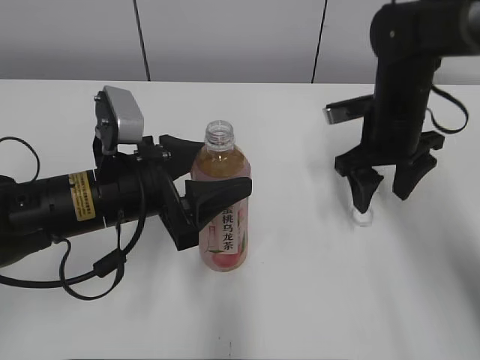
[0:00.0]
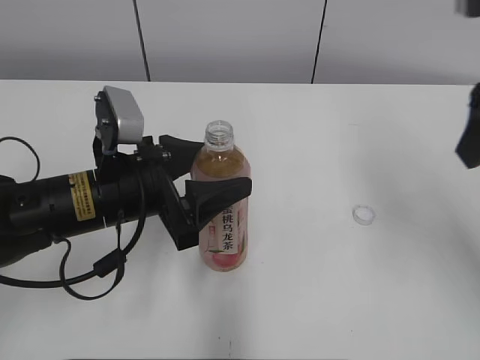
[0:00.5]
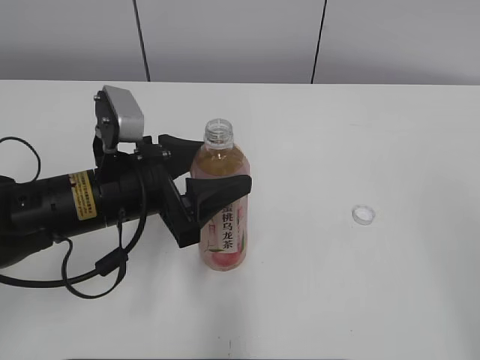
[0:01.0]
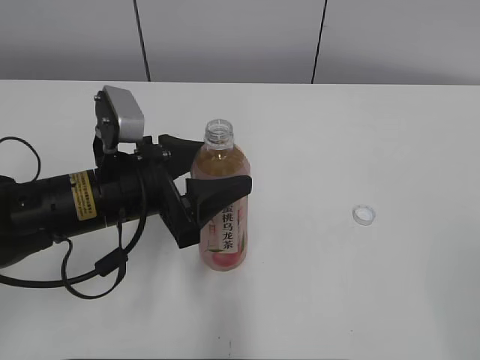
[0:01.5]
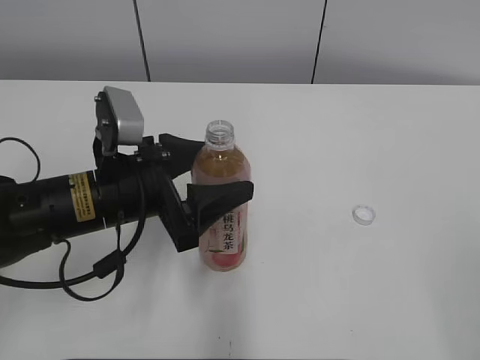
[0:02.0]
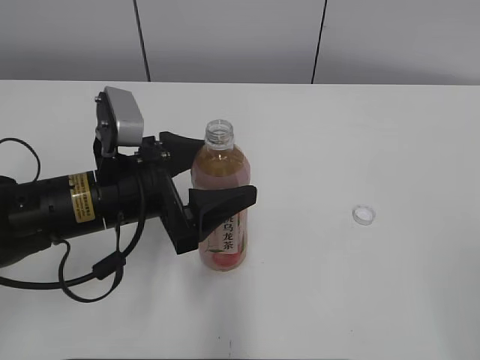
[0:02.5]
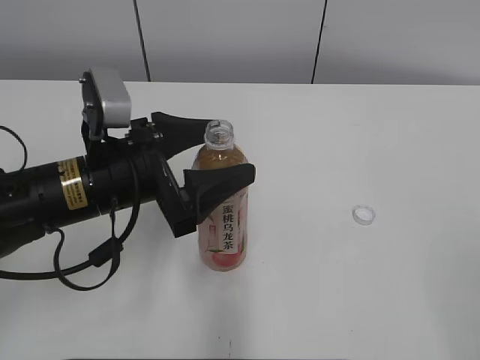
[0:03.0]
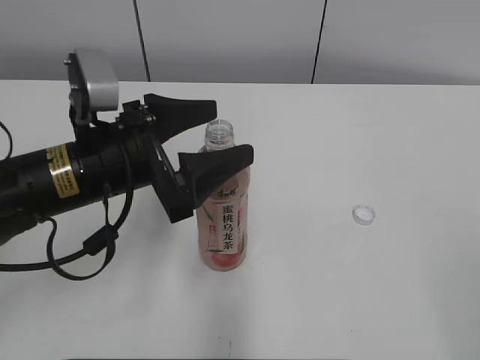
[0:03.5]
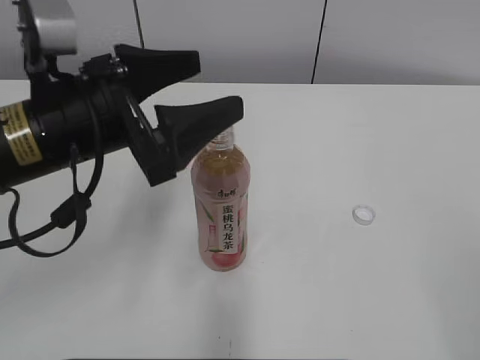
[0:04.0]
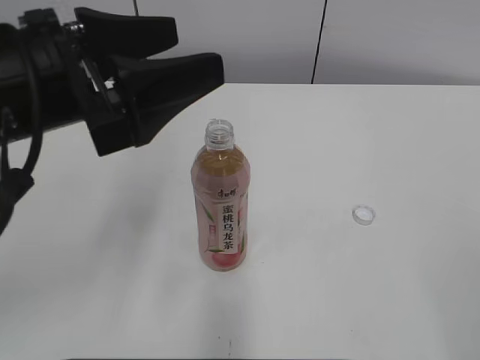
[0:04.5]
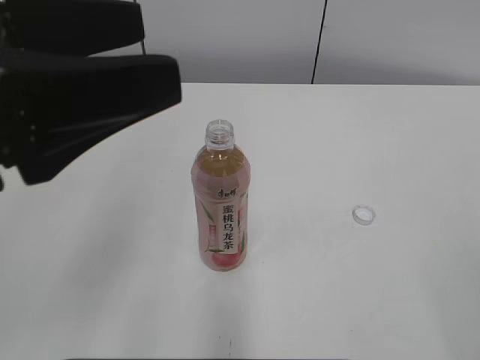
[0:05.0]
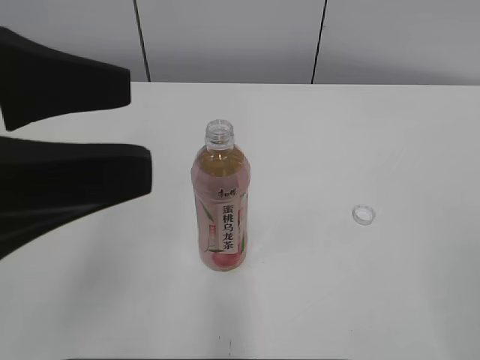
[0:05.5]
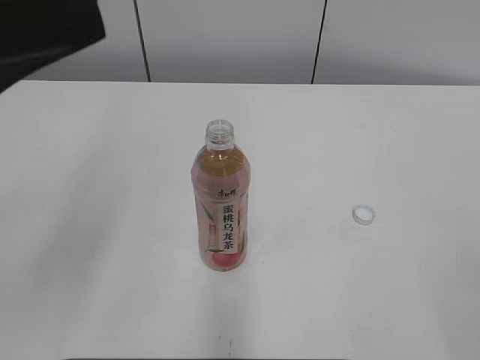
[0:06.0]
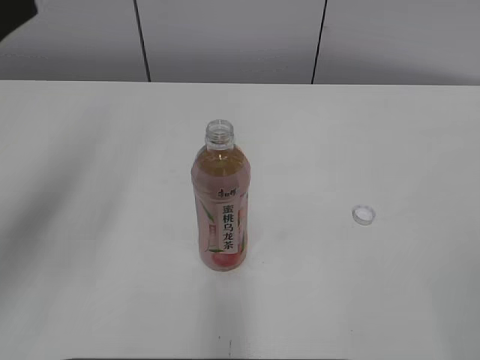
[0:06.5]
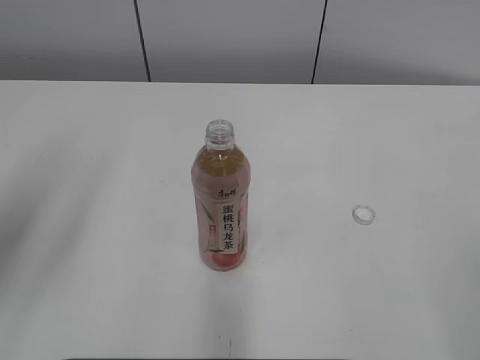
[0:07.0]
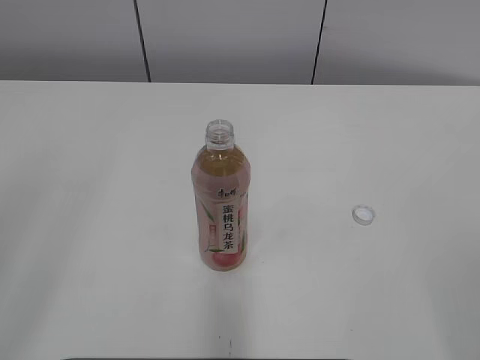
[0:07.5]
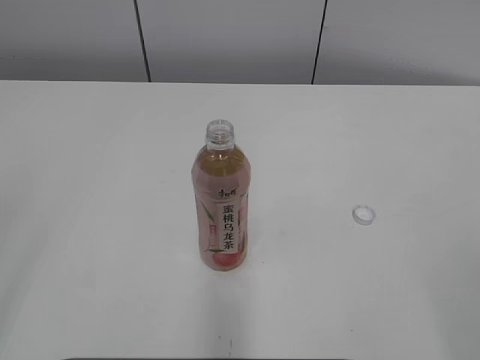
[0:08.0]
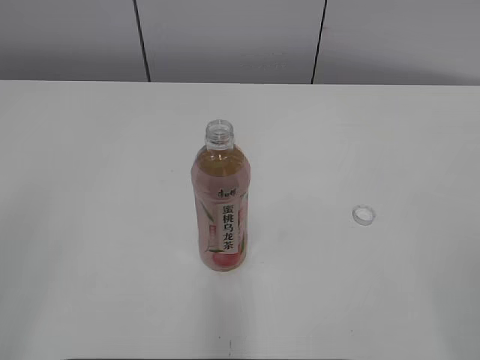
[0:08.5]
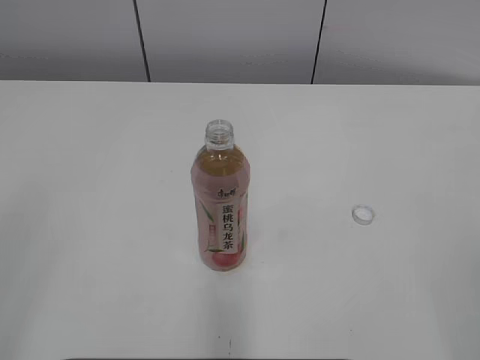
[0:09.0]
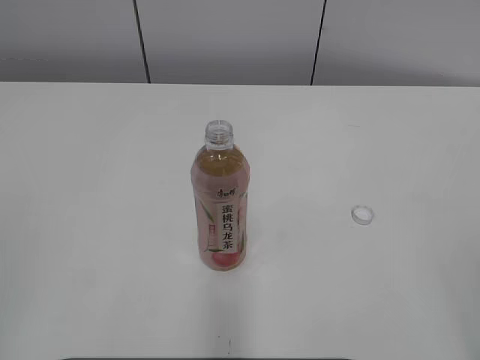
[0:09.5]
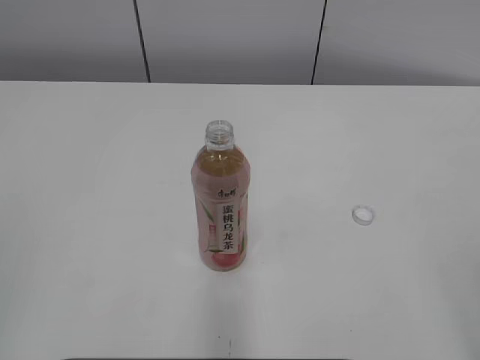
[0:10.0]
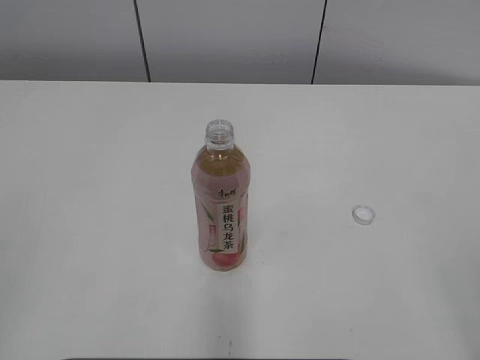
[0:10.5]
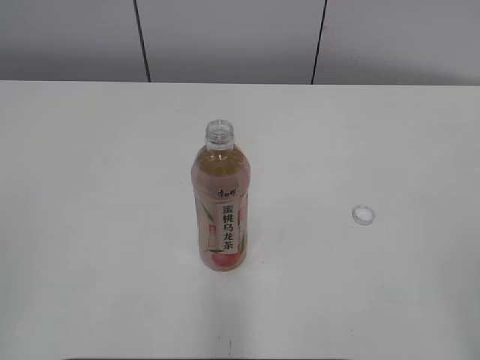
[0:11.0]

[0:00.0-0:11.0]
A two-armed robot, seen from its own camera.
0:00.0 to 0:02.0: The right gripper is displaced backward by roughly 40 cm.
0:02.0 to 0:03.5: The grippers move only a little.
0:03.5 to 0:05.5: The left gripper heads upward and backward, covering about 20 cm.
0:05.5 to 0:07.5: The left gripper shifts roughly 10 cm to the left and backward.

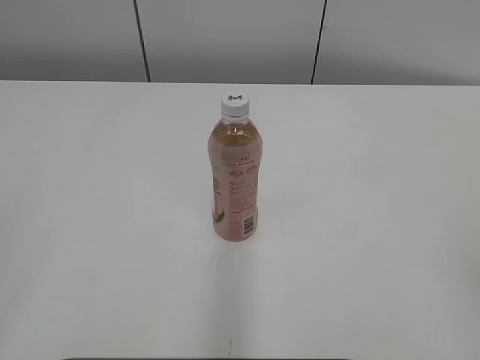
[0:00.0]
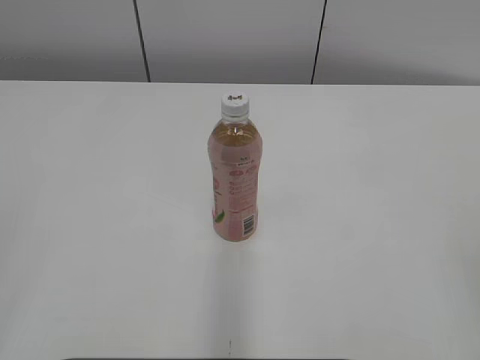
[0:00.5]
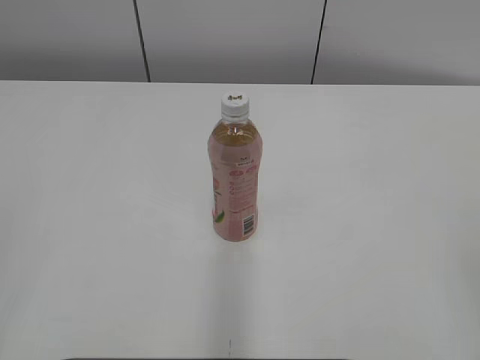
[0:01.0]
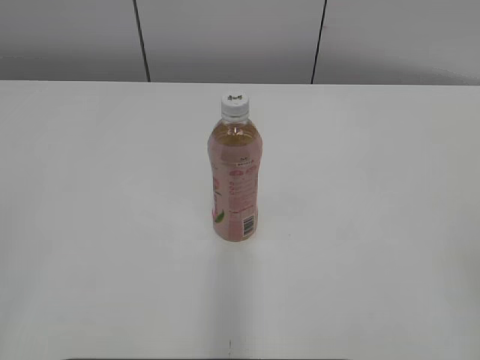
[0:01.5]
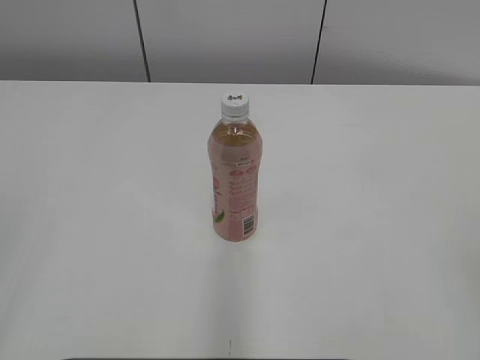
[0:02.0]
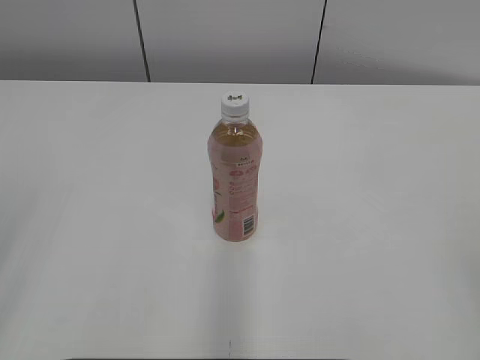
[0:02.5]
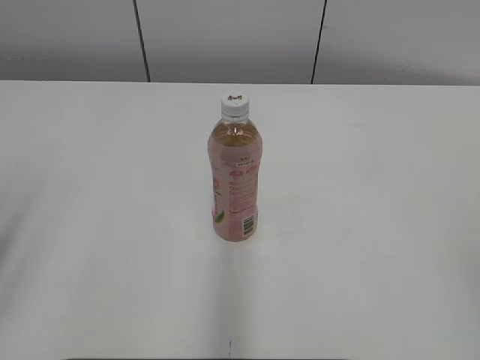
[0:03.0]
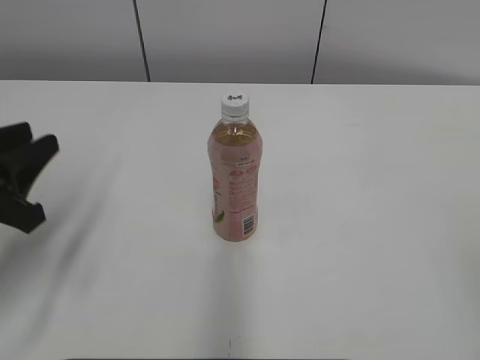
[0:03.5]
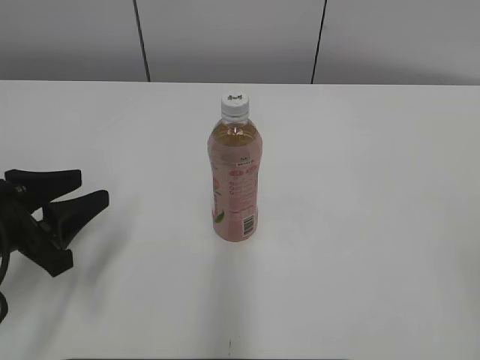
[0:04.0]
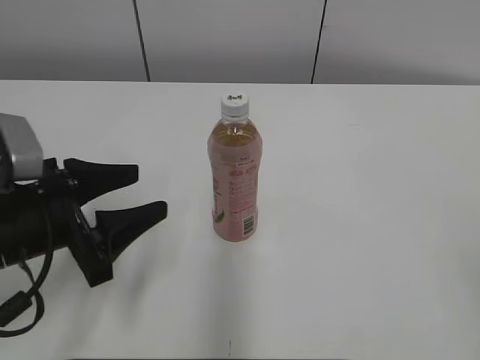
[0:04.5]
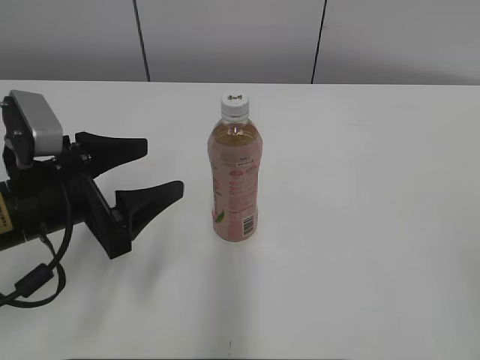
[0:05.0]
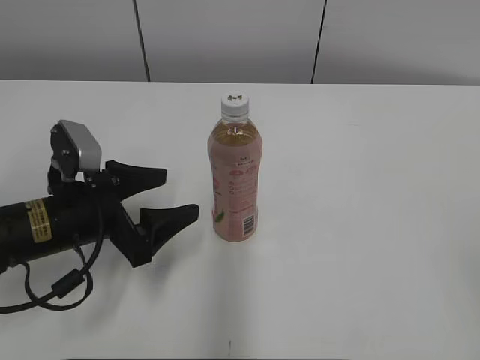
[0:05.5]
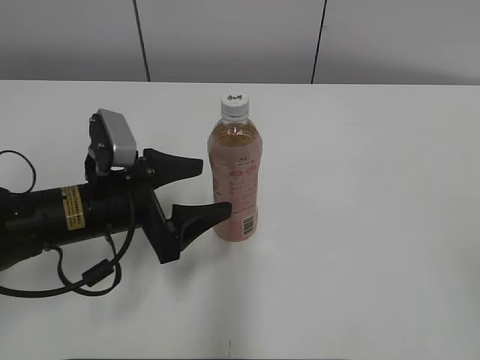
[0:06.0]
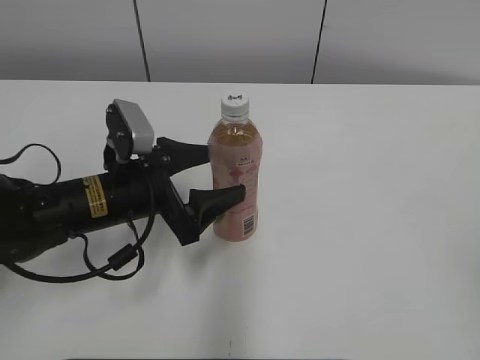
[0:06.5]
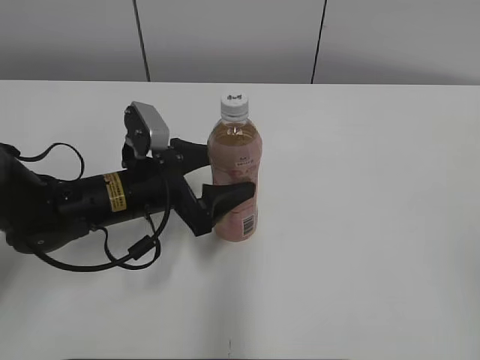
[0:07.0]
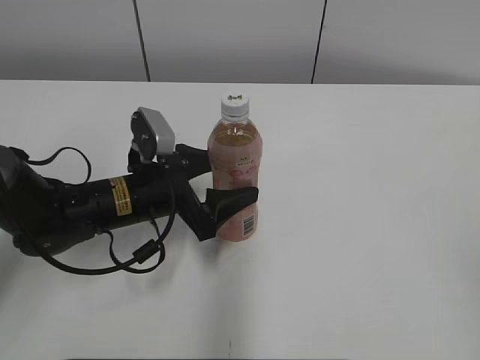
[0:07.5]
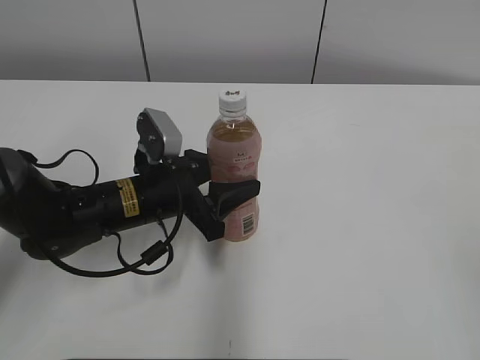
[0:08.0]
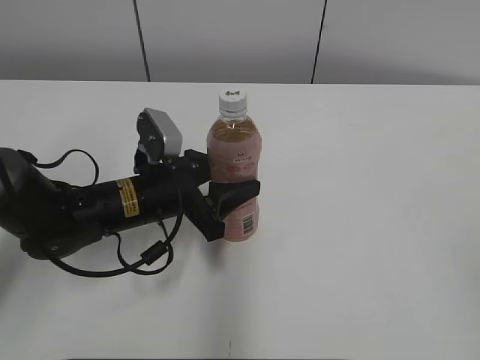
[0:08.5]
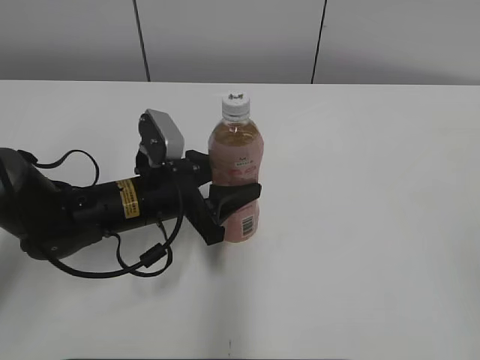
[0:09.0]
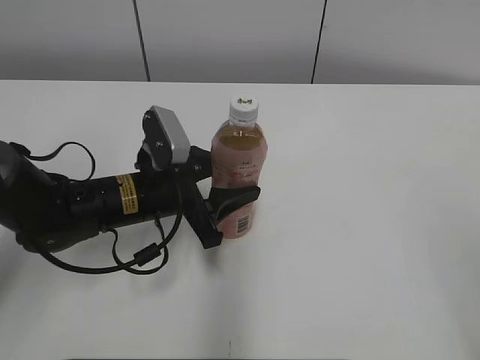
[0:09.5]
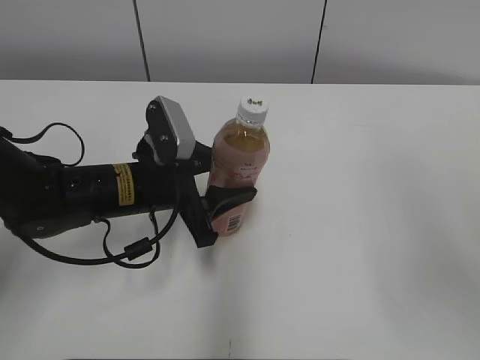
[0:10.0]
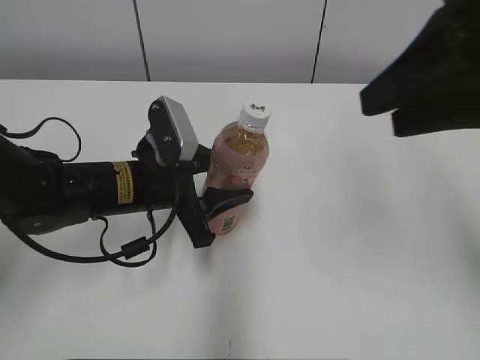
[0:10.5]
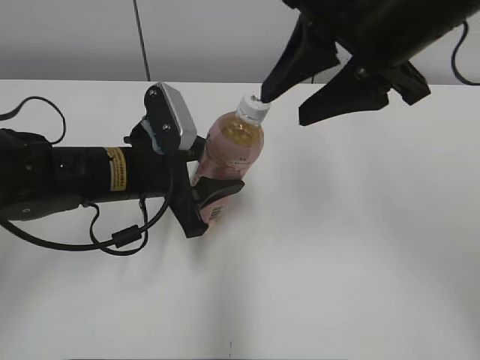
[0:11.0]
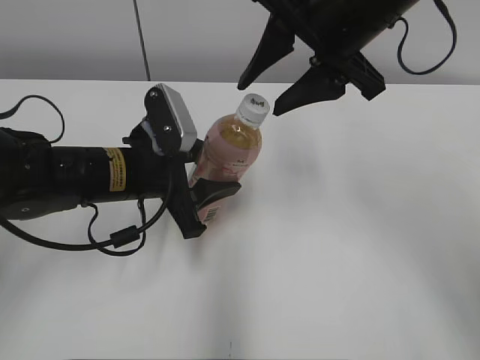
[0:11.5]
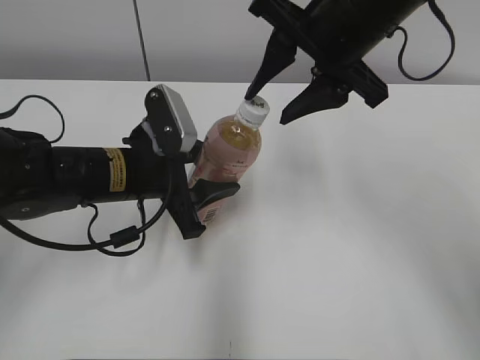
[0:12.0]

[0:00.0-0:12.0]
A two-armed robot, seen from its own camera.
Step, 0:00.0 to 0:08.5: Grab the Peach Oolong Tea with the left hand.
0:02.0 to 0:04.0: The left gripper is displaced forward and downward by roughly 25 cm, and opens.
0:04.0 to 0:06.0: The left gripper travels to the right and forward by roughly 10 cm, and opens its fingers.
0:06.0 to 0:08.0: The left gripper changes place by some 5 cm, and closes up.
0:08.0 to 0:10.0: The right gripper goes some 15 cm forward and upward.
0:10.0 to 0:12.0: The right gripper travels forward and to the left by roughly 25 cm.

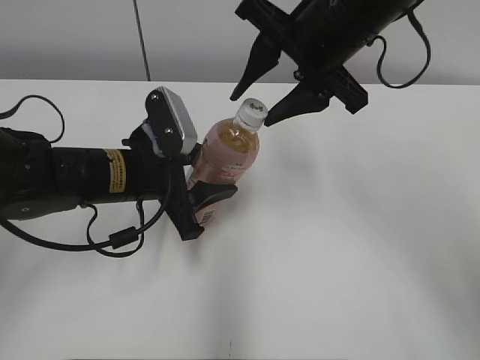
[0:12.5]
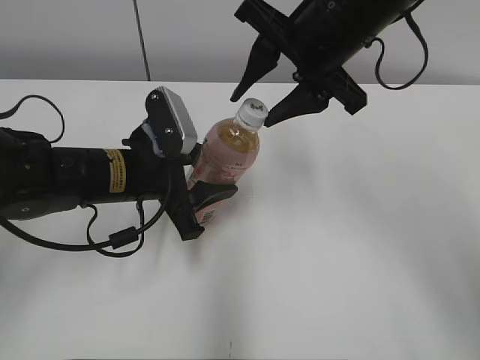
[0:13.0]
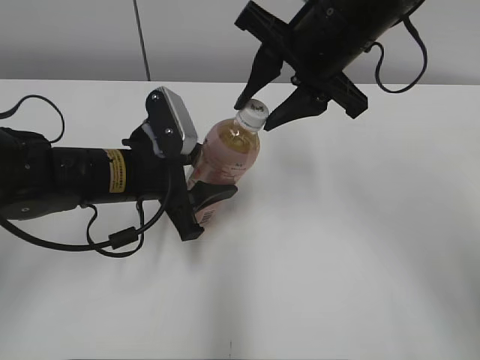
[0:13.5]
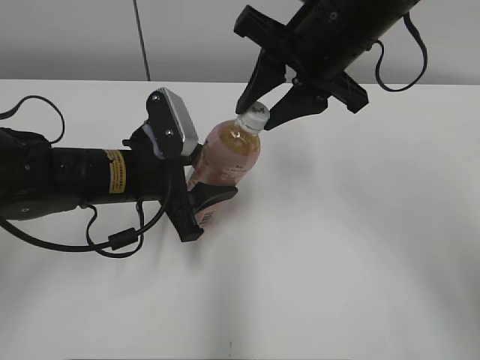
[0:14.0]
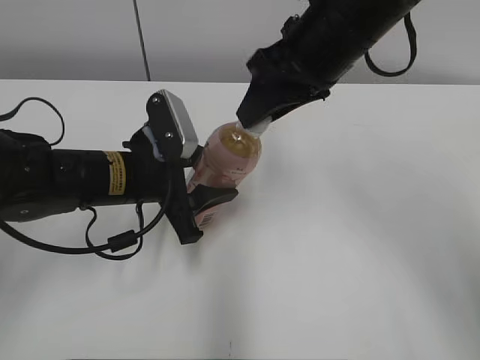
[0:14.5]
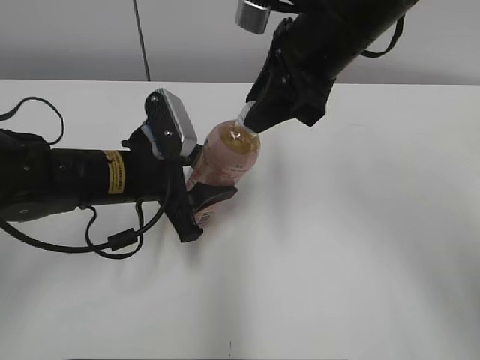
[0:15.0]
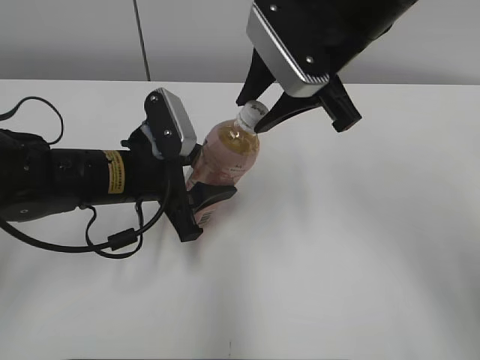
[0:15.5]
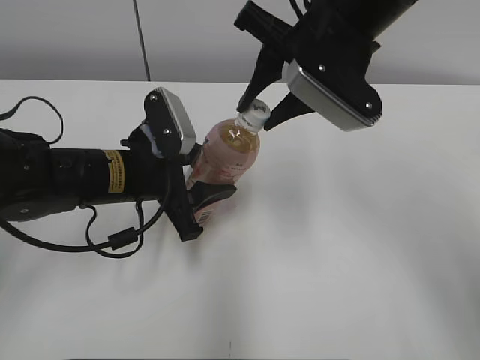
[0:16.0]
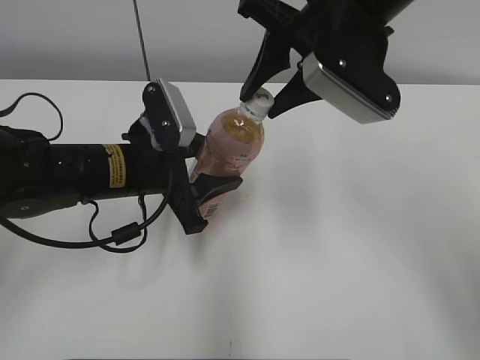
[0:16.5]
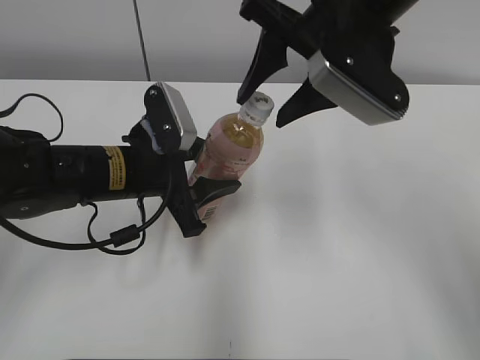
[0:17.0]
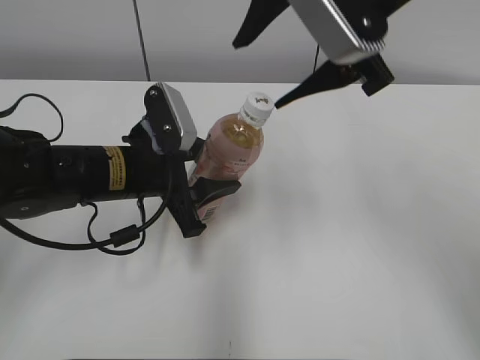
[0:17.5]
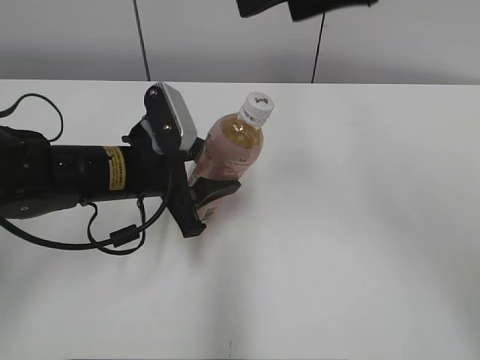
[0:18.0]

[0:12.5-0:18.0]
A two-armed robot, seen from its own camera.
0:16.0 to 0:18.0: The right gripper is displaced upward by some 10 cm, and opens its fingers.
